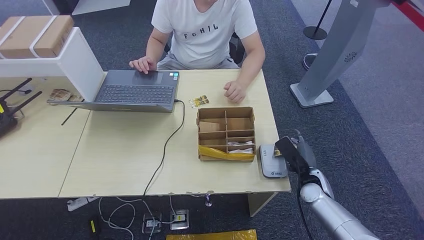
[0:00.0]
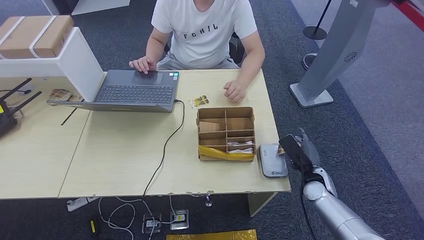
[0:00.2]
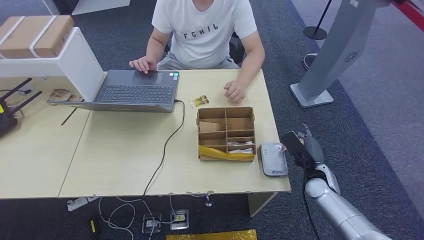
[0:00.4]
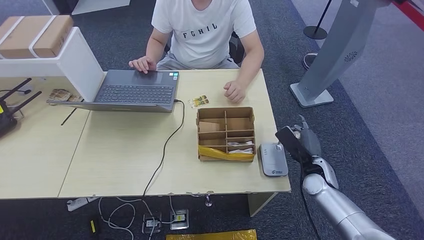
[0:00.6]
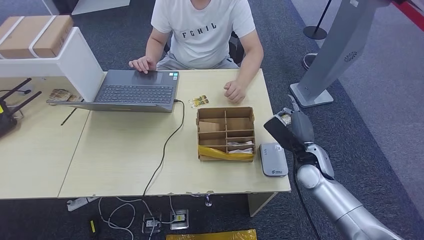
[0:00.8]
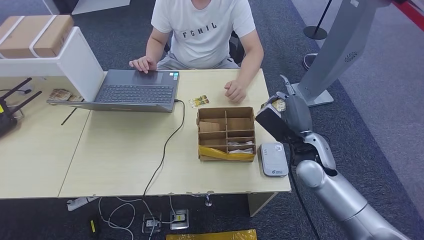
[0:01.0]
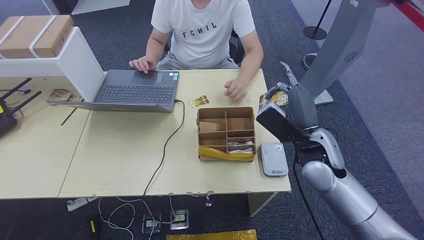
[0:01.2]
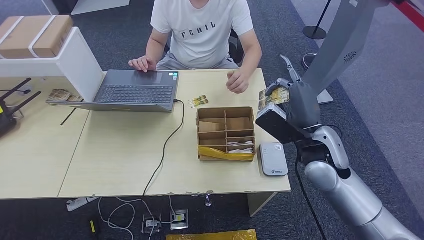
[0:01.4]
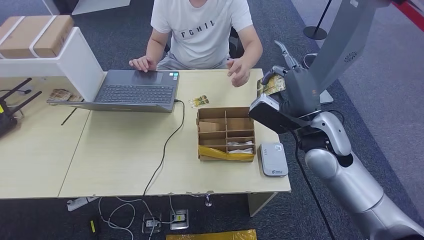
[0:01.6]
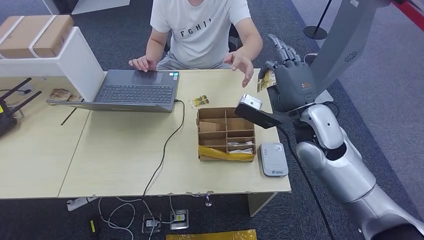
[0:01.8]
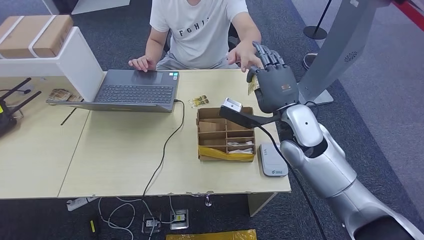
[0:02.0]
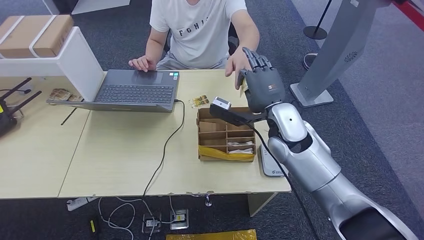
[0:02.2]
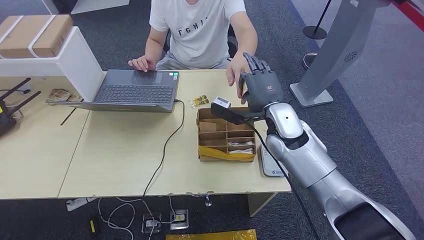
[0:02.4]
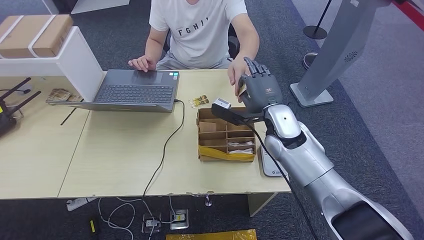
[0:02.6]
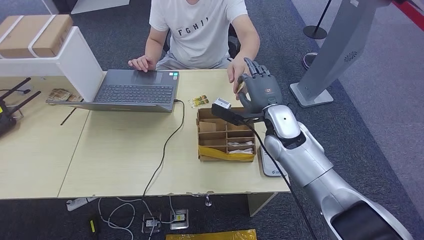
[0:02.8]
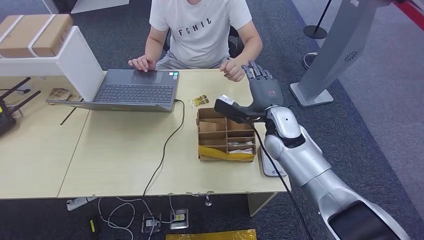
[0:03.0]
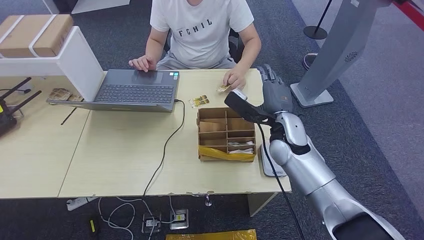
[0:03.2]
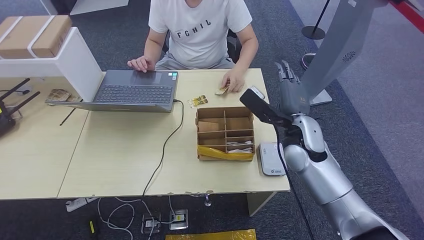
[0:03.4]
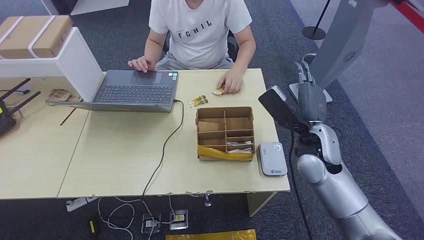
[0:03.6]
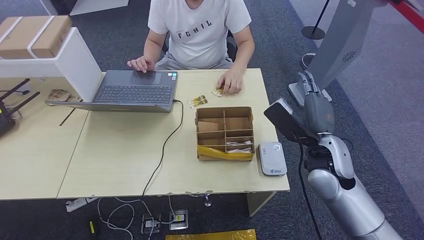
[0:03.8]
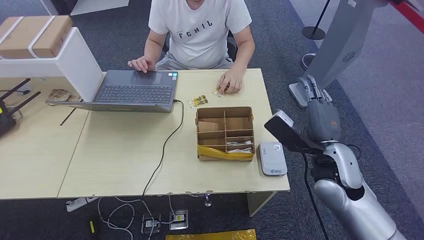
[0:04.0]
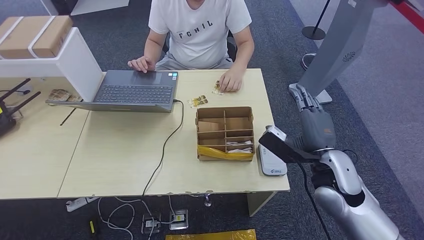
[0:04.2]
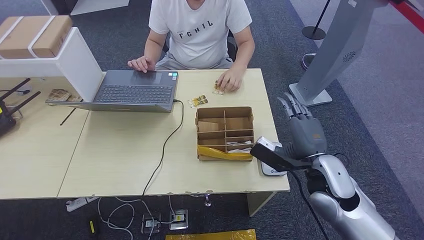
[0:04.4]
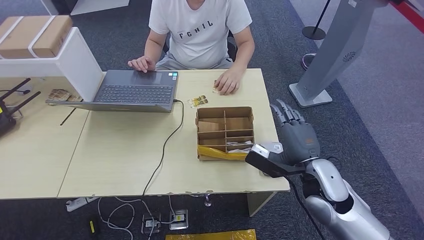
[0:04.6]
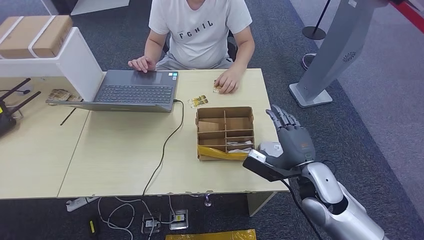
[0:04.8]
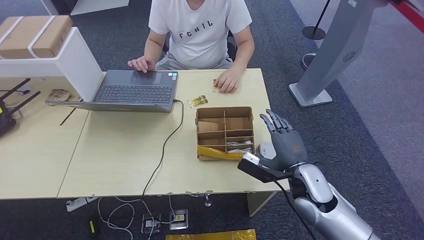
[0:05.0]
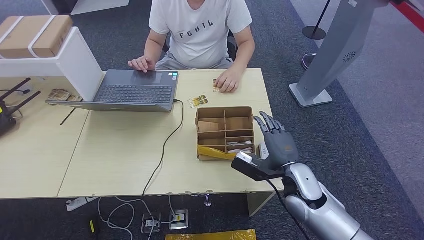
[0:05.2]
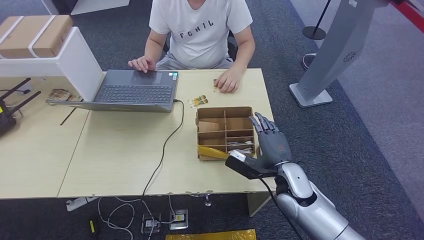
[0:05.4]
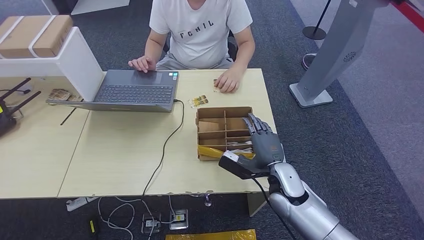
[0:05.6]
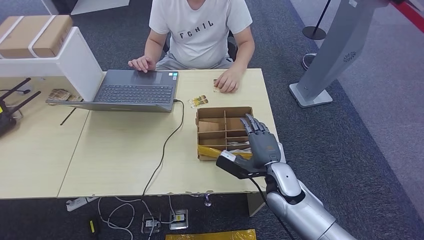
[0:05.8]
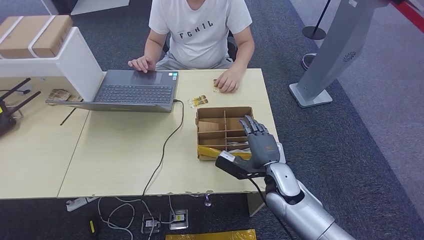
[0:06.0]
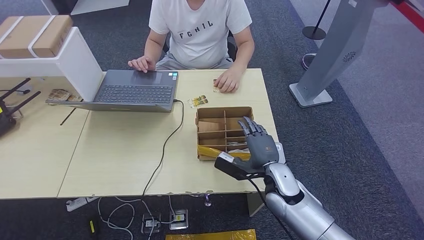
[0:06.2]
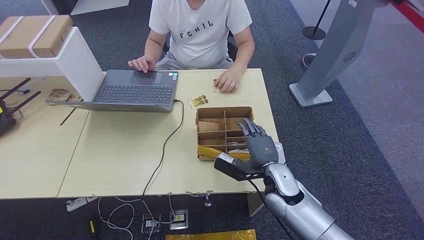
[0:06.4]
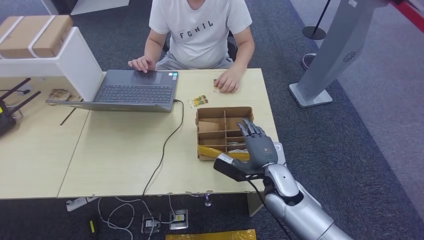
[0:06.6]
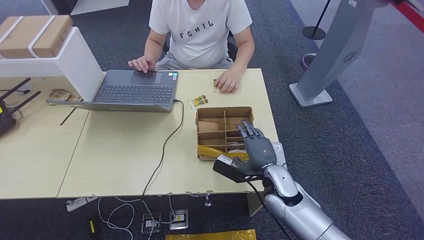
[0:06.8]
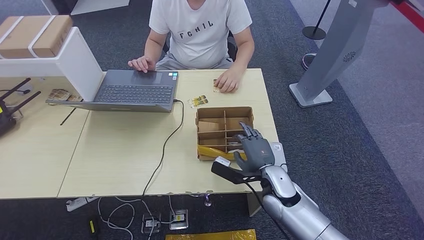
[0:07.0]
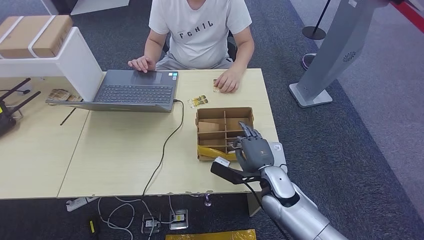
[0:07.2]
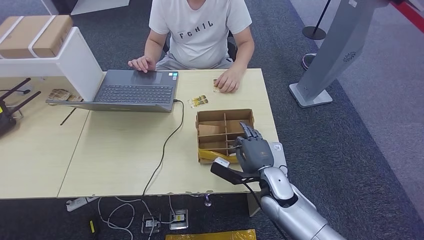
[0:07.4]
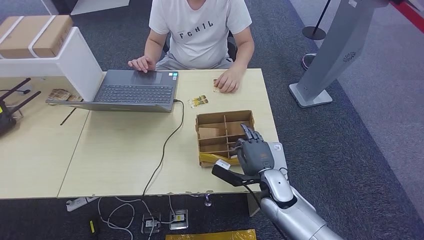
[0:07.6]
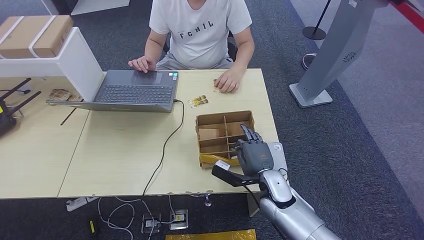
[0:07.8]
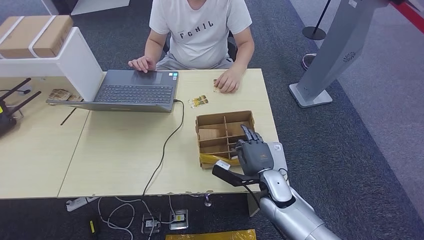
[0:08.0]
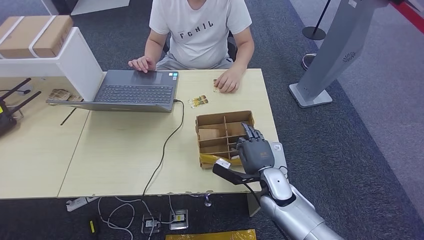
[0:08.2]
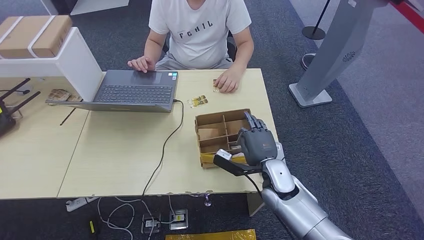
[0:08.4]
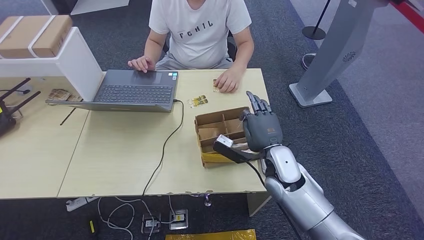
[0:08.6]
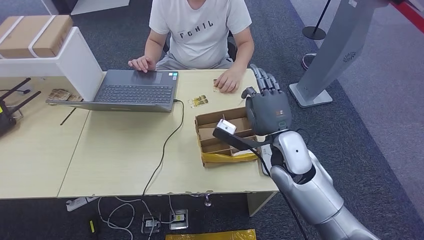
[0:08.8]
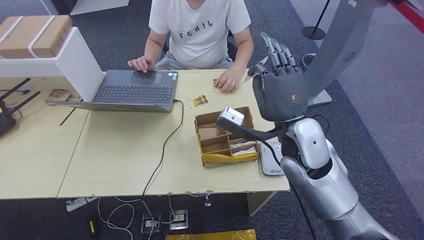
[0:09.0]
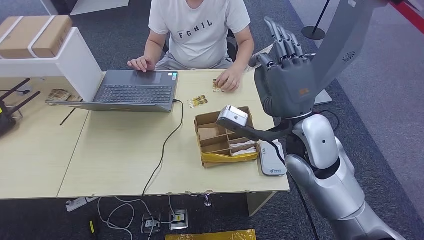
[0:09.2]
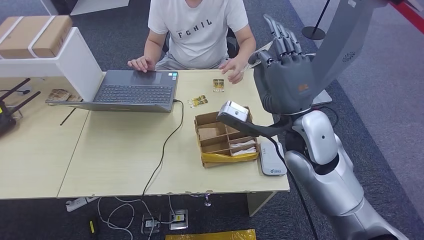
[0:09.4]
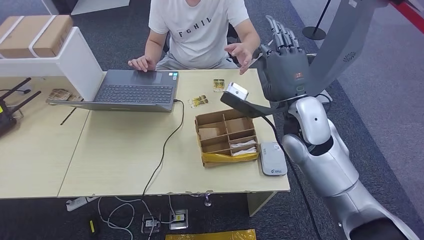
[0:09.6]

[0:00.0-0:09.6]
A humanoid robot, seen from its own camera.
Step, 0:00.4 to 0:03.0: Hand the ID card to the person.
Step, 0:03.2 to 0:08.8: Pick up the room key from the key card box.
0:00.0 to 0:01.6: The right hand goes about 25 cm upward.
0:01.6 to 0:03.2: The right hand is displaced downward by roughly 5 cm.
0:03.2 to 0:04.8: The right hand is displaced backward and to the right by about 15 cm.
0:04.8 to 0:06.4: The right hand goes approximately 10 cm to the left and downward.
0:06.4 to 0:08.0: There are only small adjustments of the hands.
0:08.0 to 0:09.6: The right hand is displaced upward by some 25 cm.

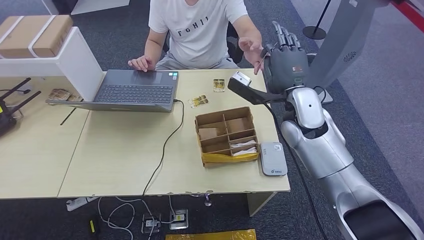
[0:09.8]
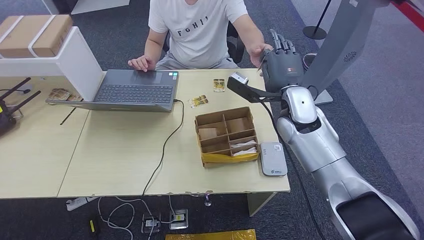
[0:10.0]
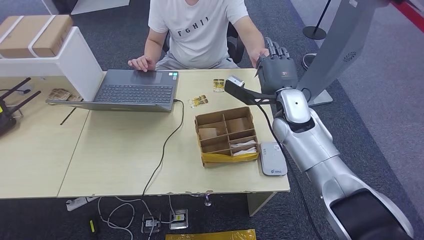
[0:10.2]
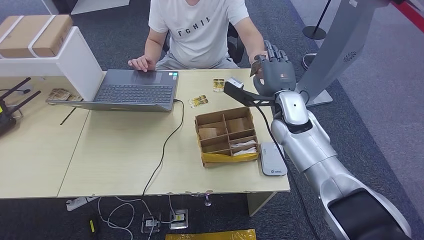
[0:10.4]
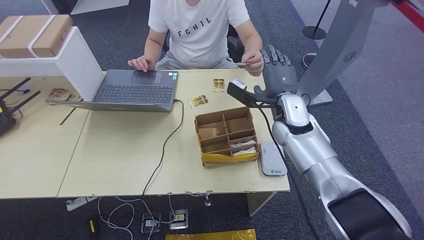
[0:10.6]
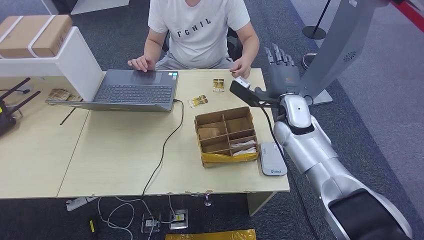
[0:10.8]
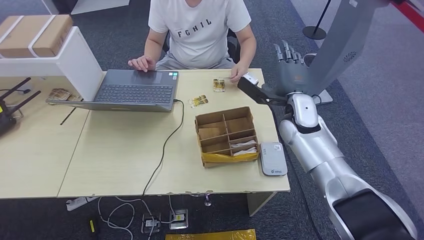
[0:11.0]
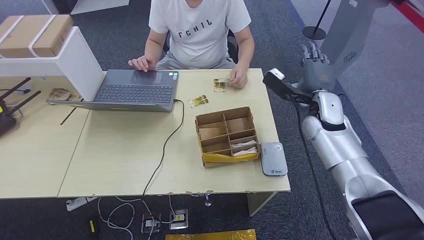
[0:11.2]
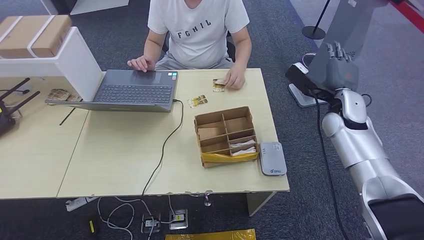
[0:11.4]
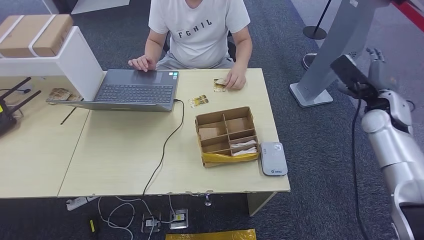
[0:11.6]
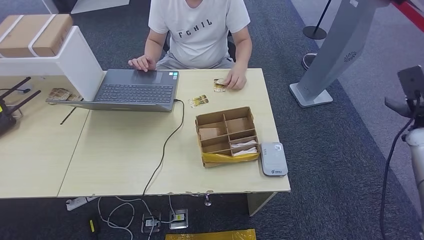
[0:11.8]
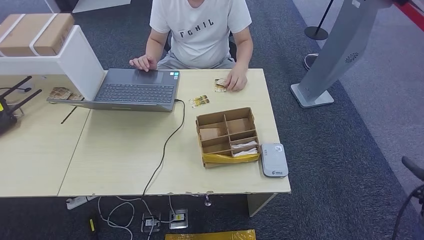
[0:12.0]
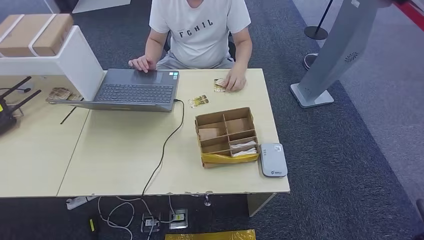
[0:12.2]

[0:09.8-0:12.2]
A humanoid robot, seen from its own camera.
Step, 0:09.8 to 0:12.0: Hand the room key to the person.
0:09.8 to 0:11.0: The right hand is displaced downward by about 5 cm.
0:11.0 to 0:12.2: The right hand goes about 50 cm to the right, backward and downward.
